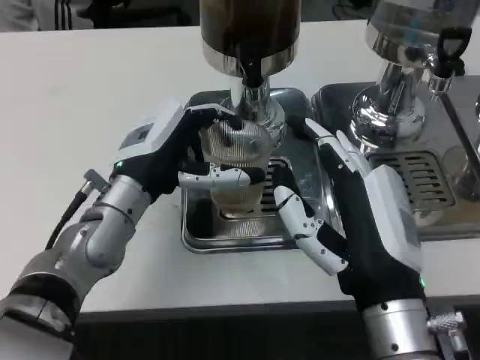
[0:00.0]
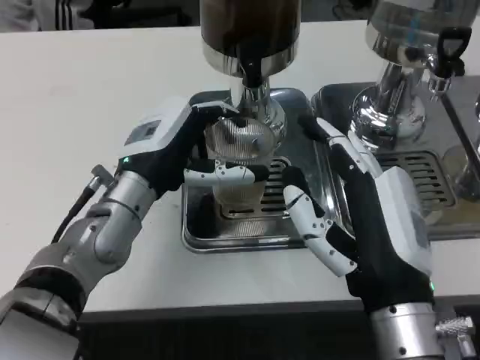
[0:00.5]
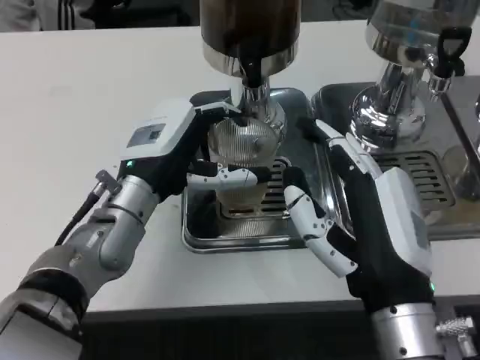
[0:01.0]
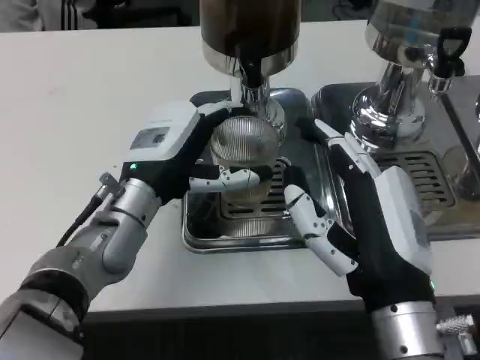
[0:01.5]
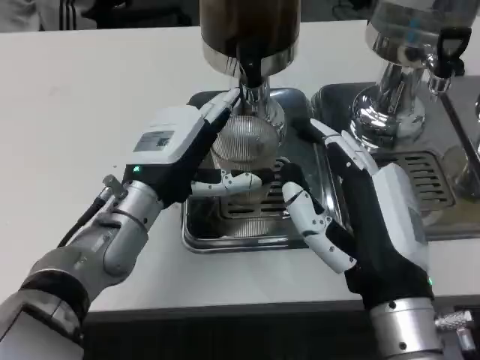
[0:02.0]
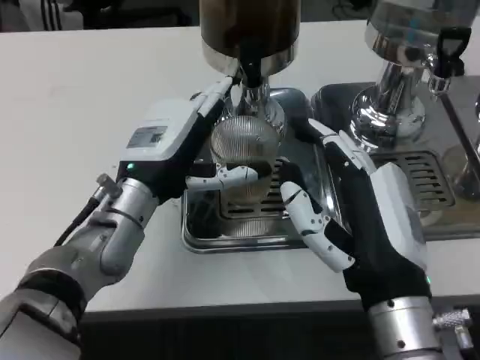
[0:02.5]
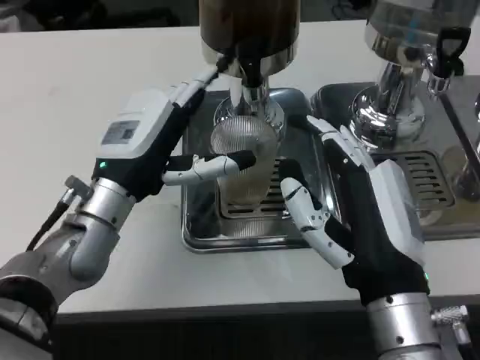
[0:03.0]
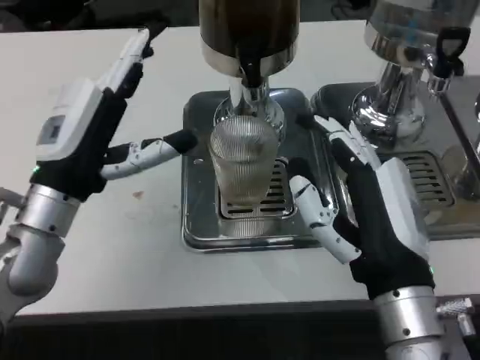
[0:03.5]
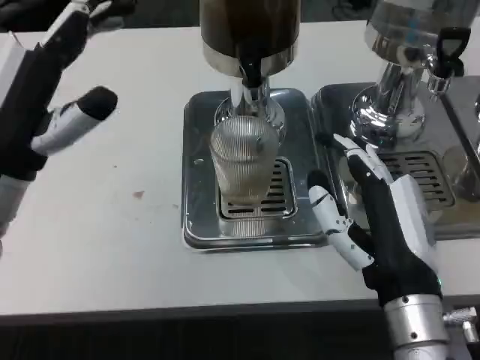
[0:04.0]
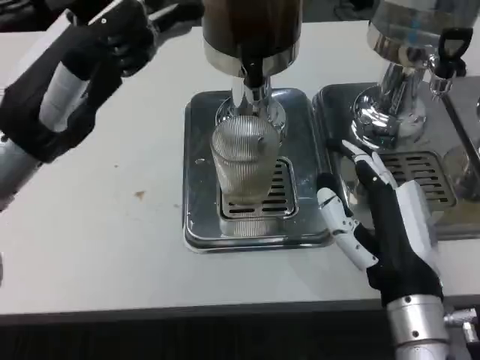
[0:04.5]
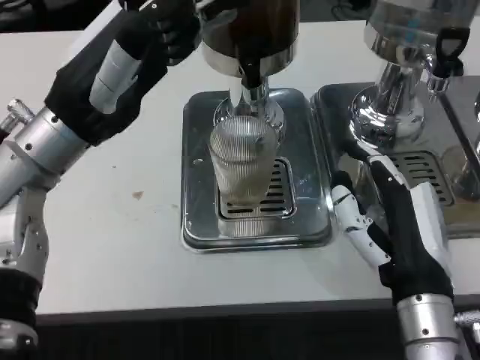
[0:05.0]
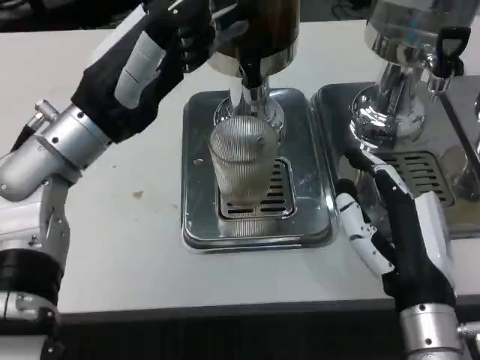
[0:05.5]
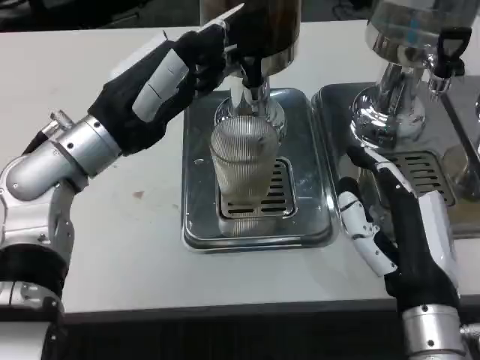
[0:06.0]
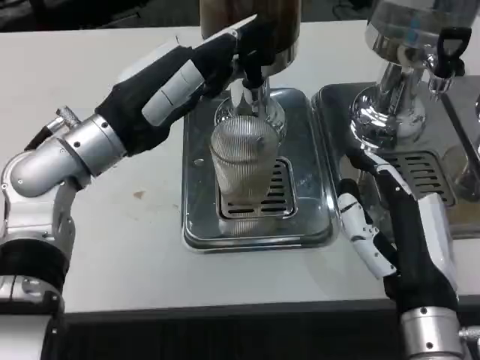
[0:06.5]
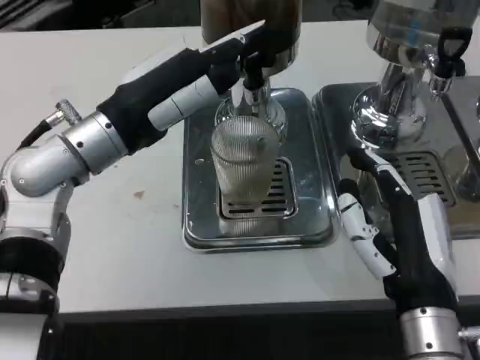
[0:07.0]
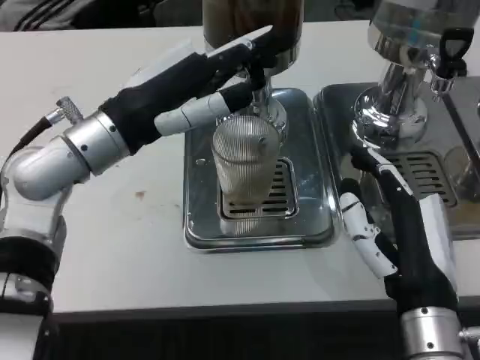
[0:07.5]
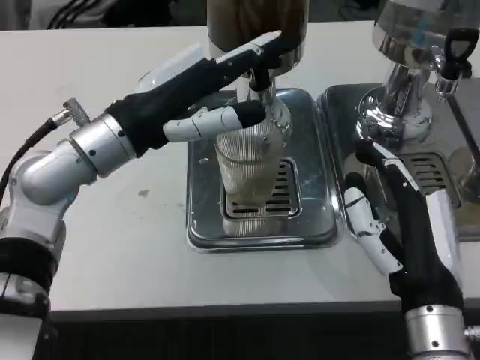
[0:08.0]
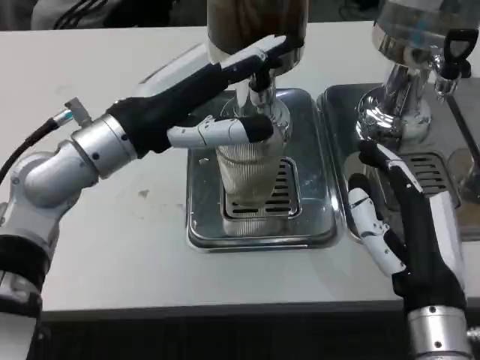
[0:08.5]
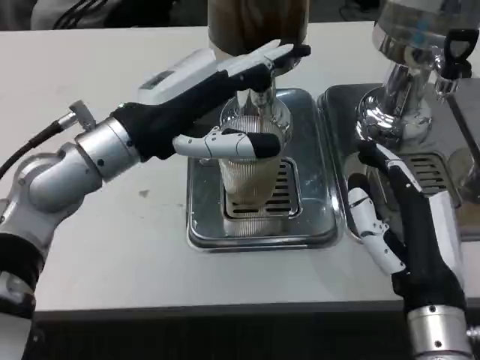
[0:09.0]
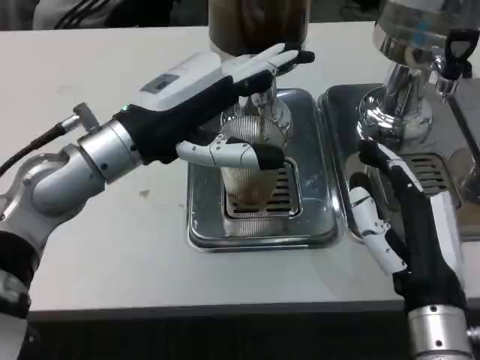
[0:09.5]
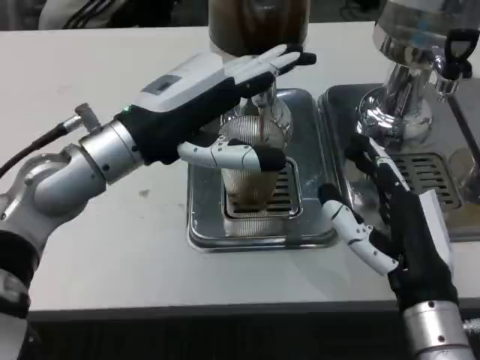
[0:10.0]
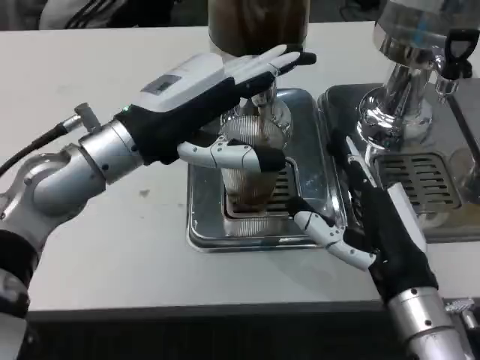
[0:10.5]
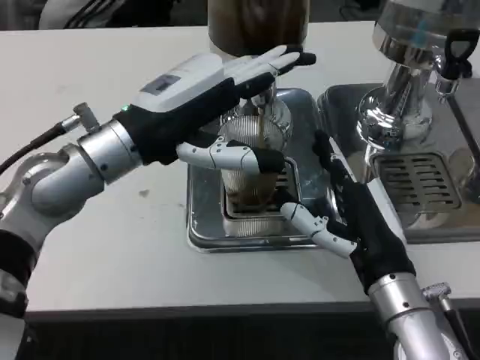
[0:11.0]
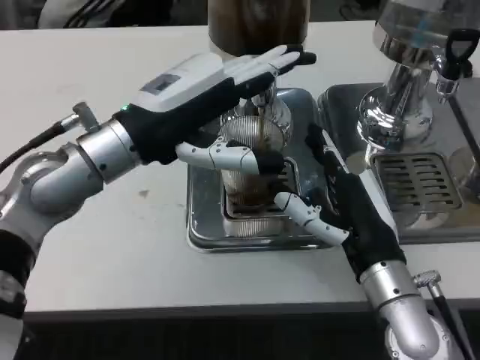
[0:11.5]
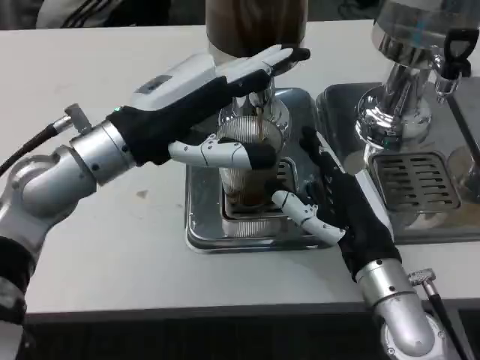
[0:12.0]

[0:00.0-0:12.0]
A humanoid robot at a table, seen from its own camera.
Task of the whole recording: Grasp the cup under the faucet to collect the drink, then remove the cup.
0:02.0 to 0:04.0: The left hand moves to the left and upward, roughly 10 cm.
0:04.0 to 0:06.0: The left hand moves forward, roughly 5 cm.
0:10.0 to 0:12.0: The right hand travels forward by about 5 cm.

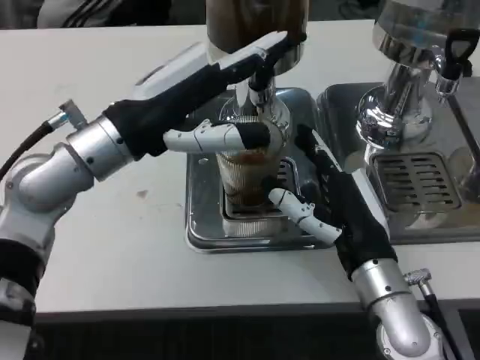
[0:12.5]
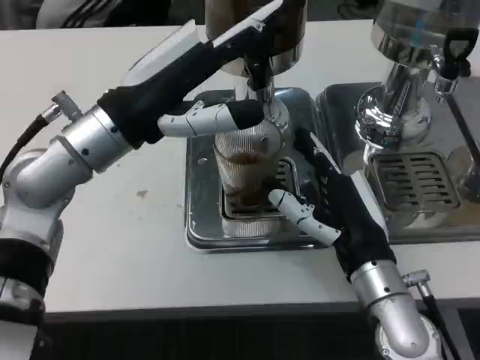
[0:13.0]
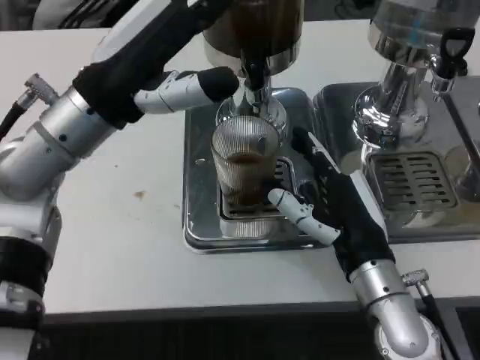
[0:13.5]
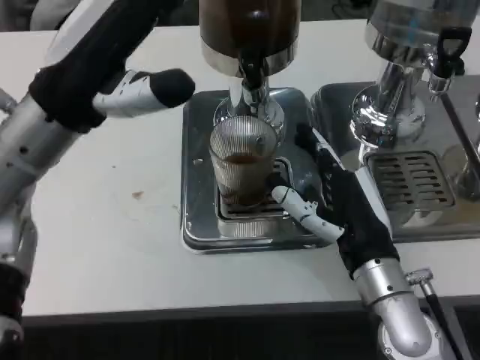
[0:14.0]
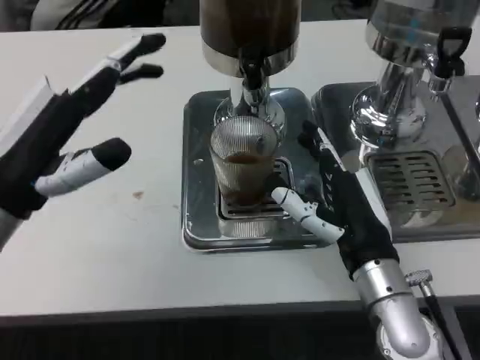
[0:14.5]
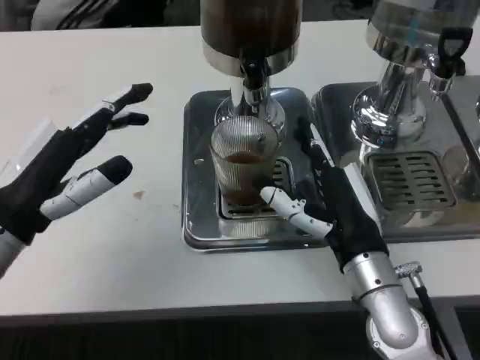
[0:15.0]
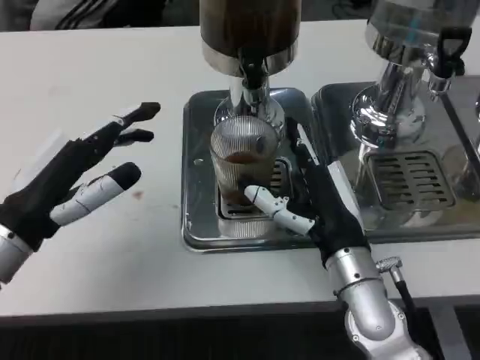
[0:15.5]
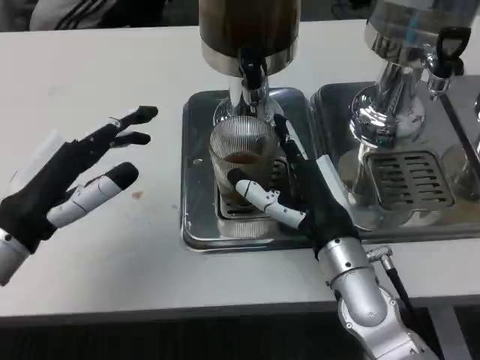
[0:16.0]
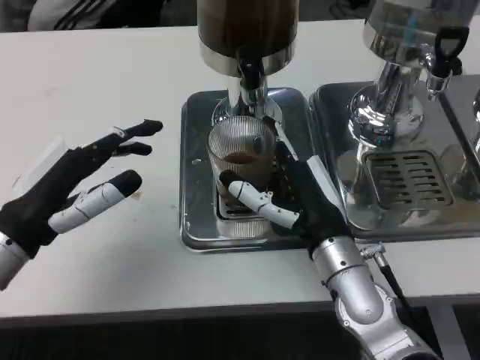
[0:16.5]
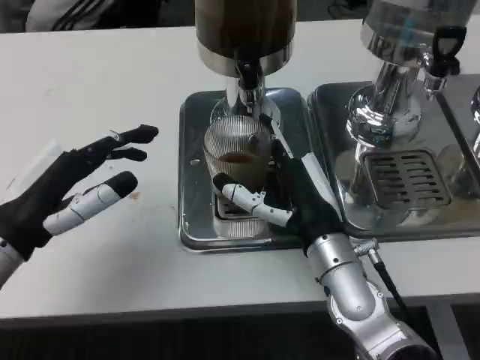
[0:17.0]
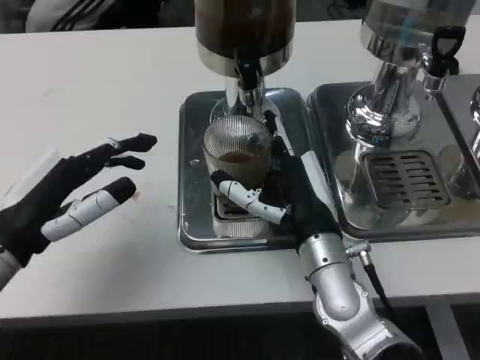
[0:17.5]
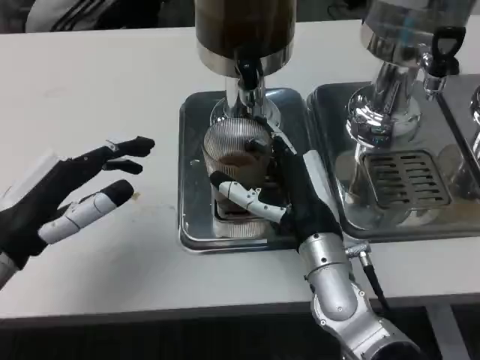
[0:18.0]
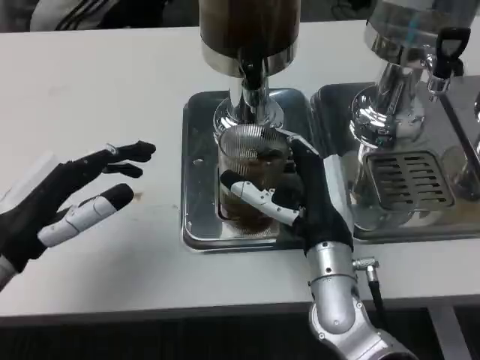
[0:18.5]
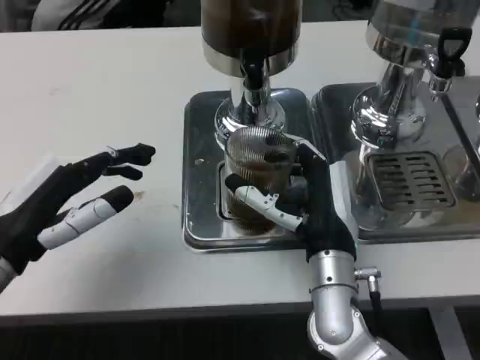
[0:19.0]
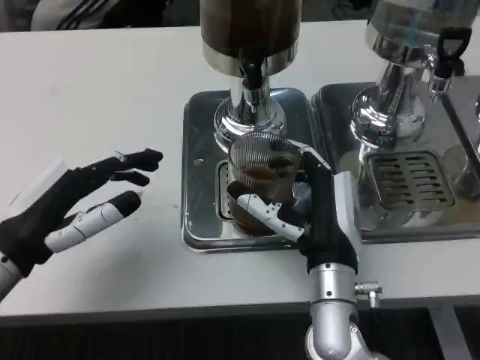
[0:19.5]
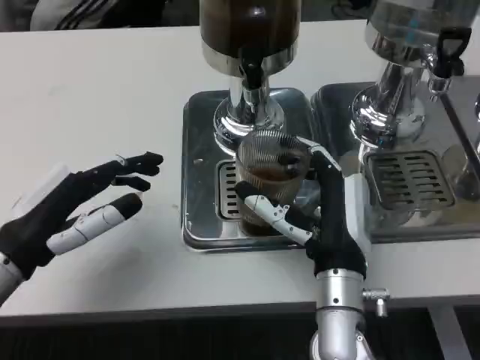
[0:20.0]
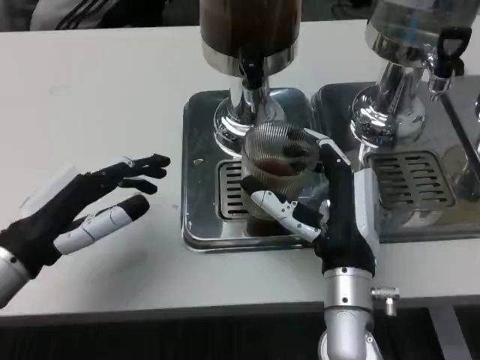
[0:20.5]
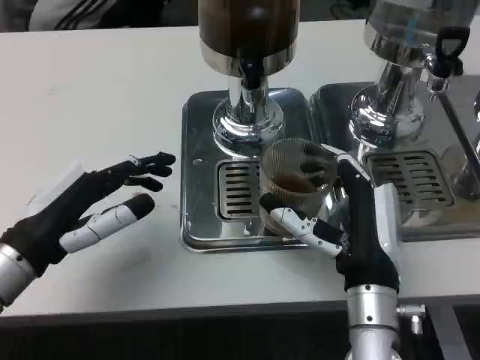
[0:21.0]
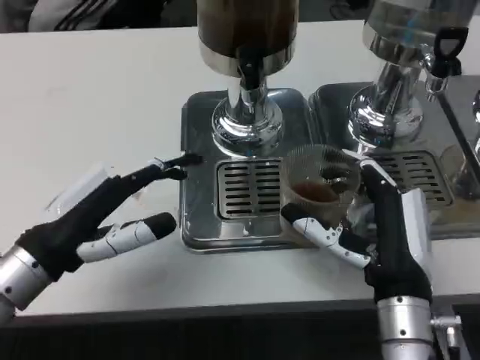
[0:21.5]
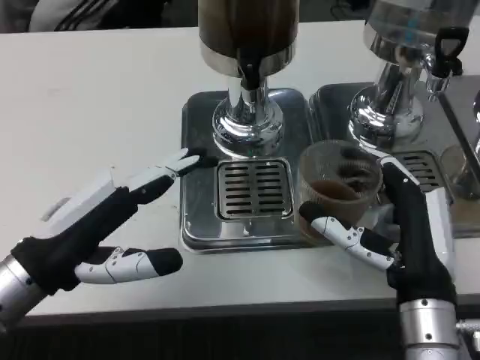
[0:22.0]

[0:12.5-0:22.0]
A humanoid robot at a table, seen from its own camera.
Task of the whole recording: Grasp the cup under the faucet to collect the drink, then remove the cup.
0:12.5 to 0:14.5: The left hand travels to the left and backward by some 10 cm.
0:16.5 to 0:18.0: The hands stay close to where they were, moving slightly.
0:20.0 to 0:22.0: The right hand is displaced to the right by some 5 cm.

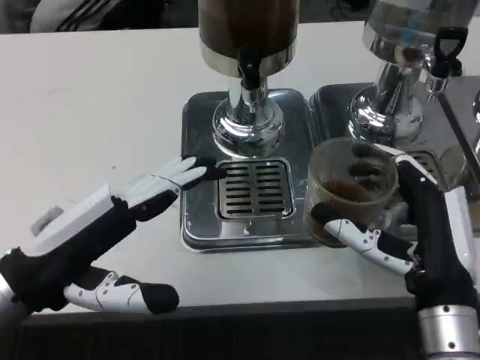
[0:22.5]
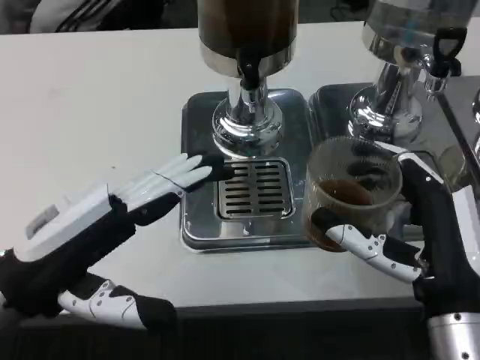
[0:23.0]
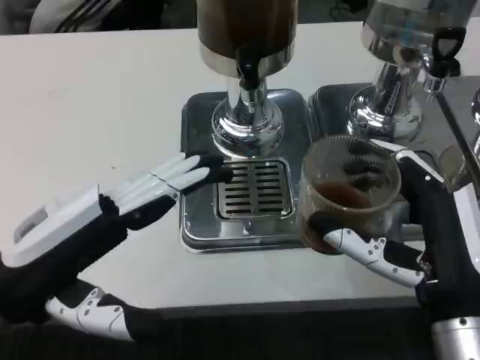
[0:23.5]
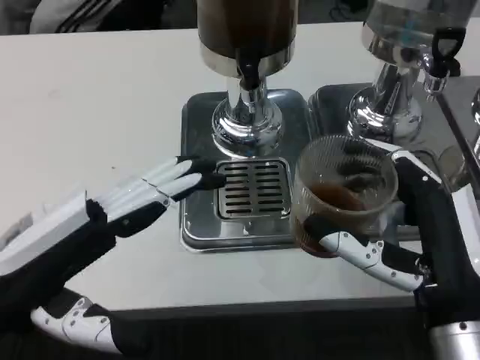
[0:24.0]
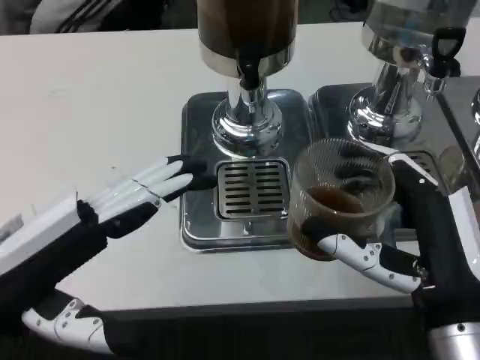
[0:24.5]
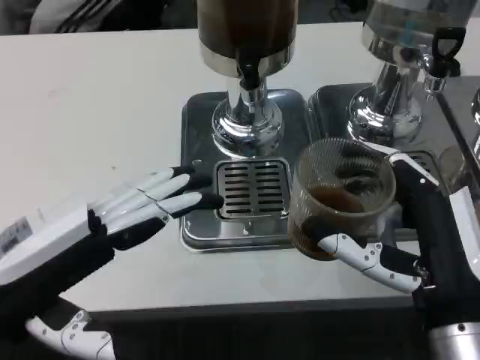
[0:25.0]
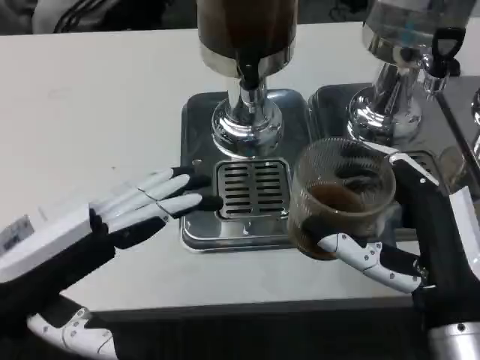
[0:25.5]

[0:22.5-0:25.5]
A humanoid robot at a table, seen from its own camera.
Task of the whole recording: Grasp the cup under the faucet to collect the drink, then remove the cup.
0:22.5 to 0:25.5: The hands stay close to where they were, moving slightly.

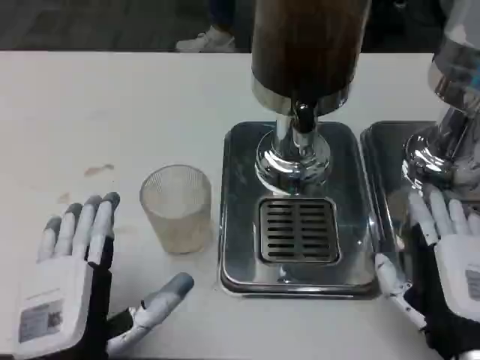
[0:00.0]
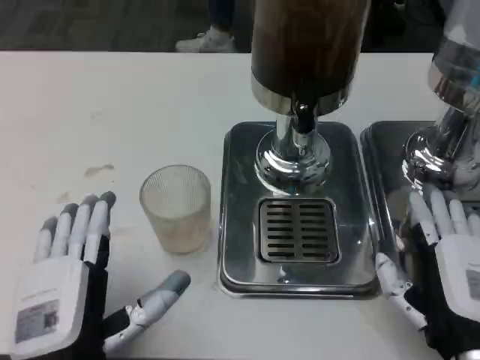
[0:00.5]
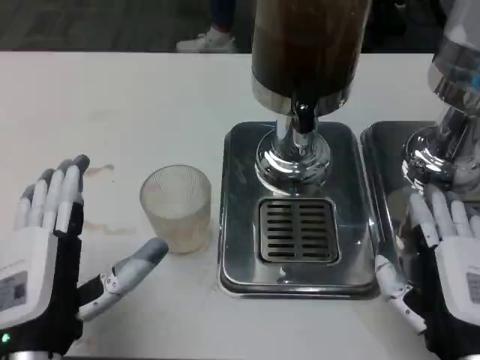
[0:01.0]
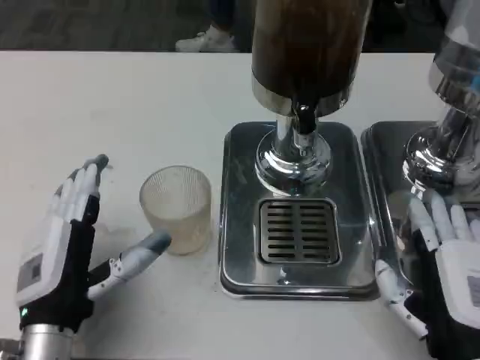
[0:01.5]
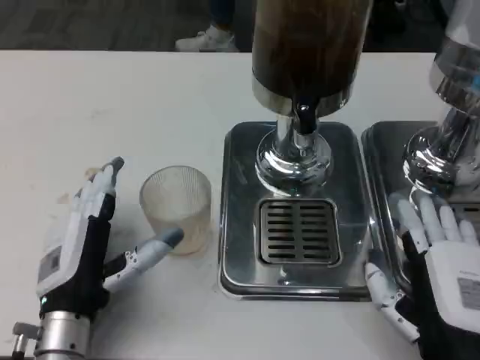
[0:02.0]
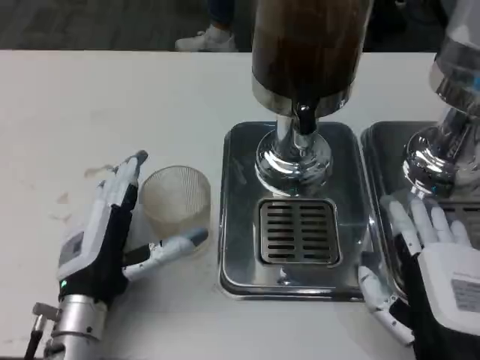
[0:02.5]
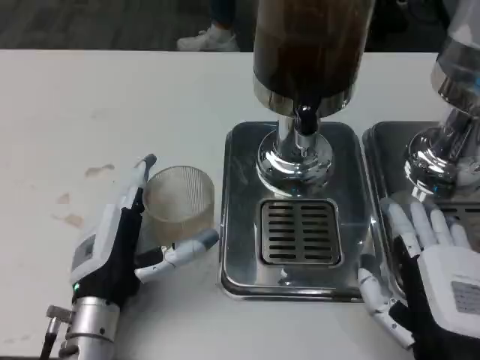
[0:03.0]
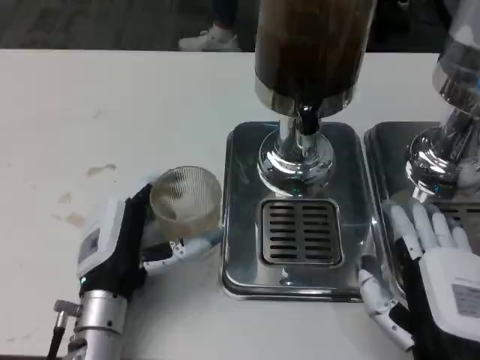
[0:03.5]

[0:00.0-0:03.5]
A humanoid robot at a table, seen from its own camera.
Task of the whole recording: Grasp the cup under the faucet to collect the drink, then remove the cup.
0:00.0 to 0:02.0: The left hand goes about 10 cm forward.
